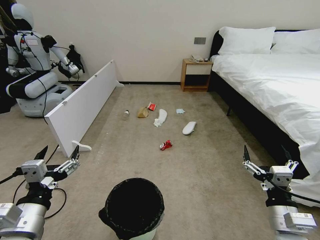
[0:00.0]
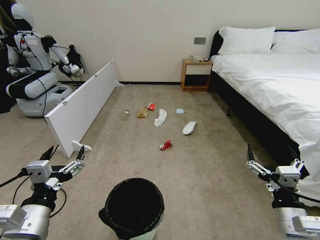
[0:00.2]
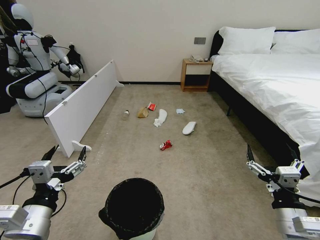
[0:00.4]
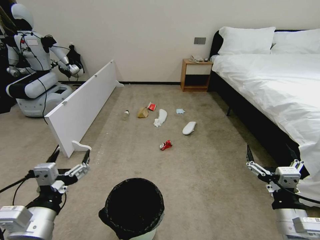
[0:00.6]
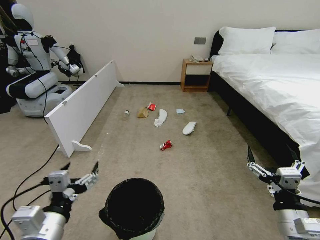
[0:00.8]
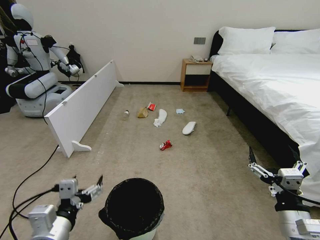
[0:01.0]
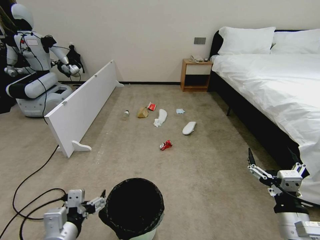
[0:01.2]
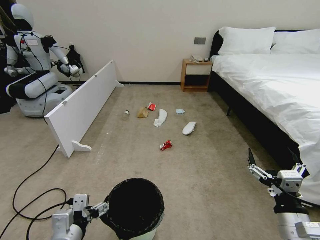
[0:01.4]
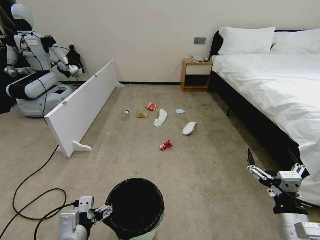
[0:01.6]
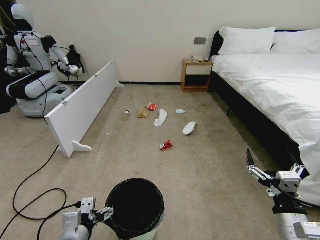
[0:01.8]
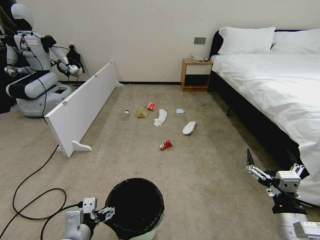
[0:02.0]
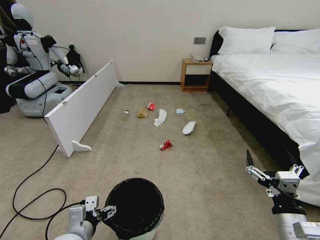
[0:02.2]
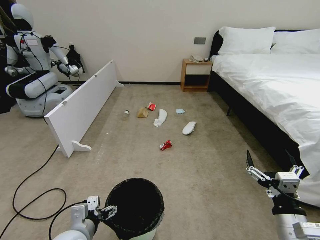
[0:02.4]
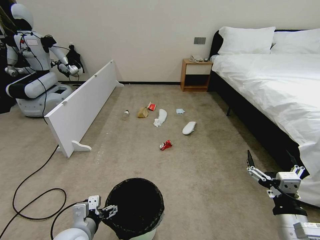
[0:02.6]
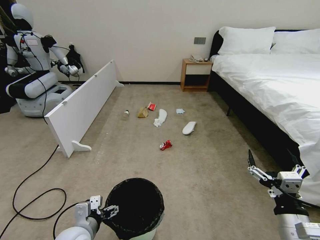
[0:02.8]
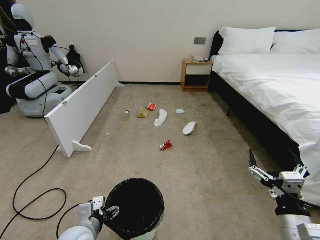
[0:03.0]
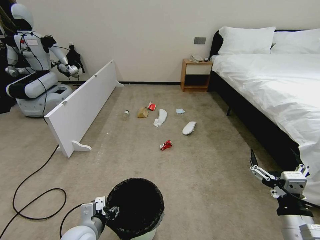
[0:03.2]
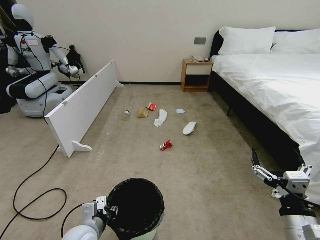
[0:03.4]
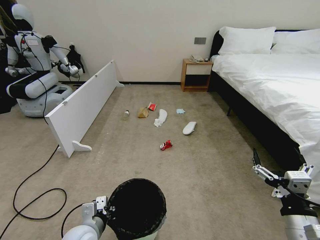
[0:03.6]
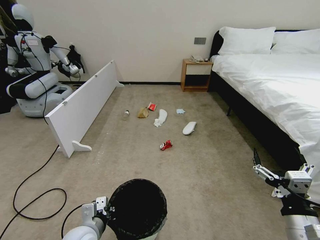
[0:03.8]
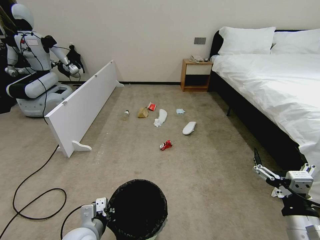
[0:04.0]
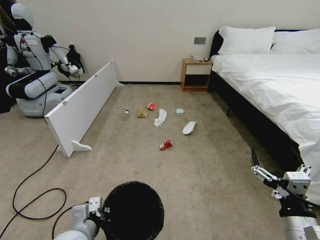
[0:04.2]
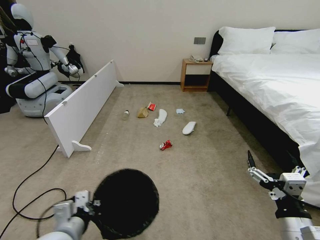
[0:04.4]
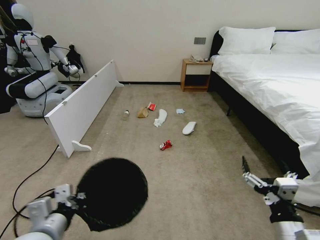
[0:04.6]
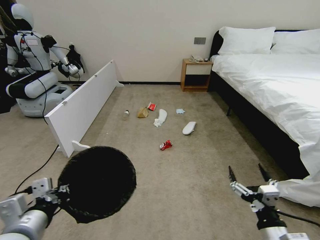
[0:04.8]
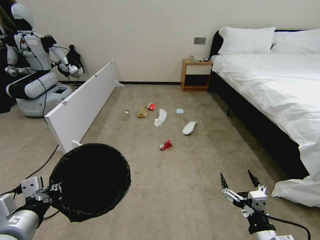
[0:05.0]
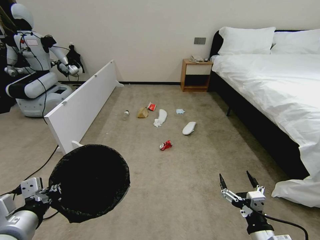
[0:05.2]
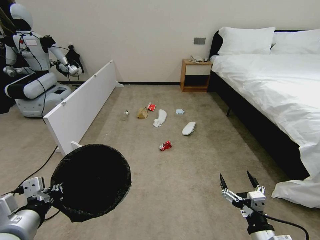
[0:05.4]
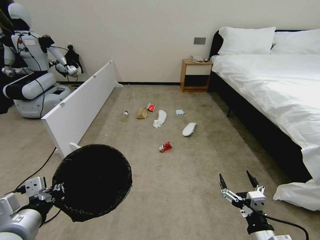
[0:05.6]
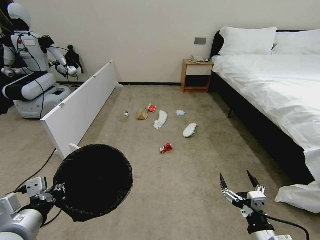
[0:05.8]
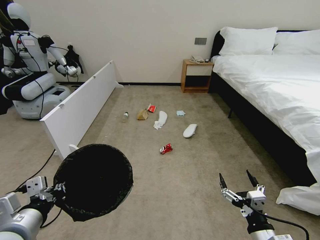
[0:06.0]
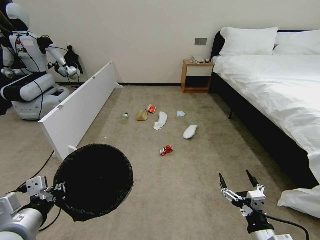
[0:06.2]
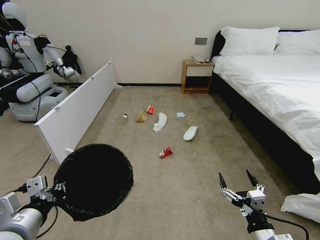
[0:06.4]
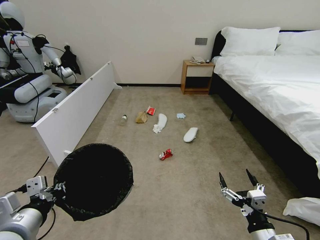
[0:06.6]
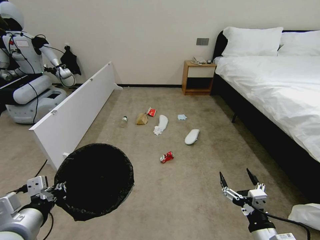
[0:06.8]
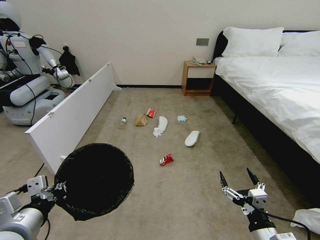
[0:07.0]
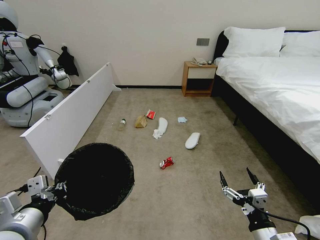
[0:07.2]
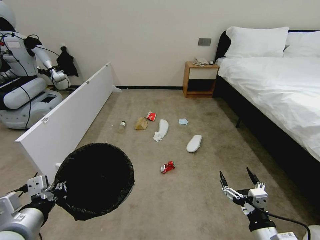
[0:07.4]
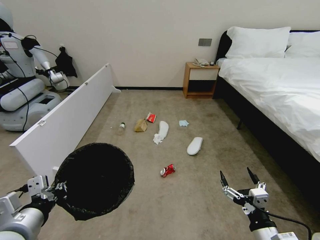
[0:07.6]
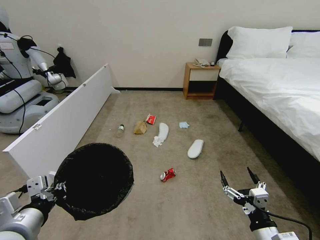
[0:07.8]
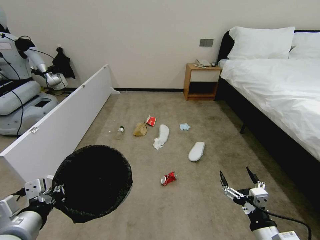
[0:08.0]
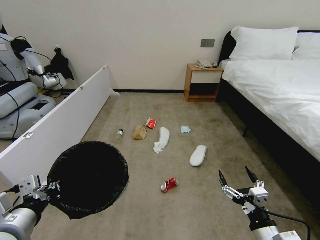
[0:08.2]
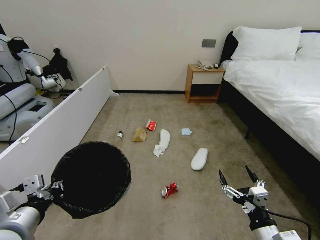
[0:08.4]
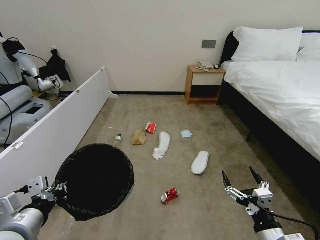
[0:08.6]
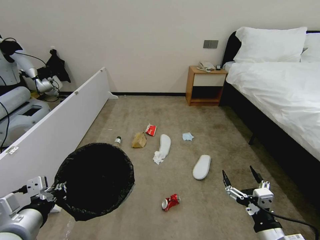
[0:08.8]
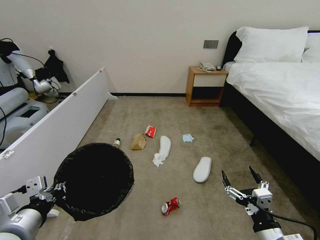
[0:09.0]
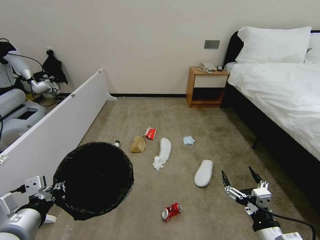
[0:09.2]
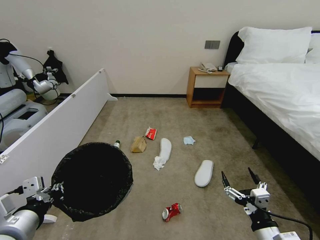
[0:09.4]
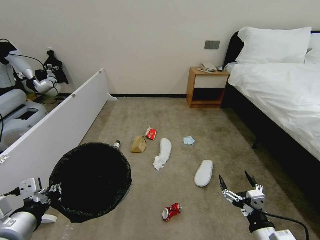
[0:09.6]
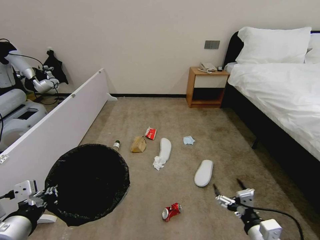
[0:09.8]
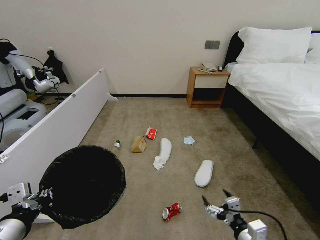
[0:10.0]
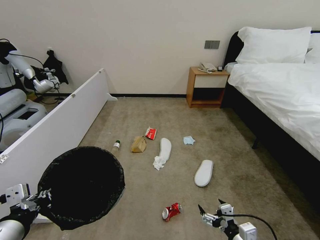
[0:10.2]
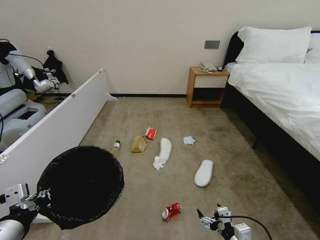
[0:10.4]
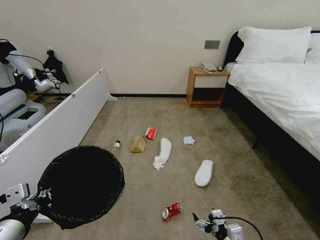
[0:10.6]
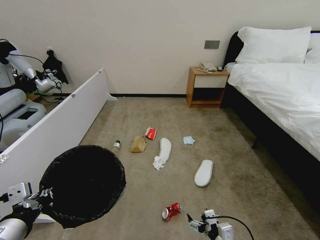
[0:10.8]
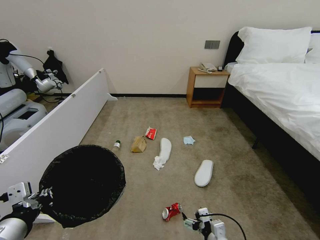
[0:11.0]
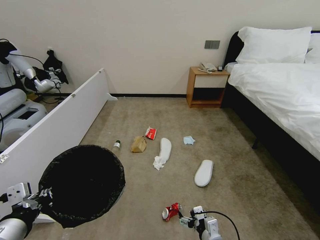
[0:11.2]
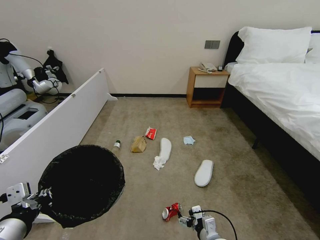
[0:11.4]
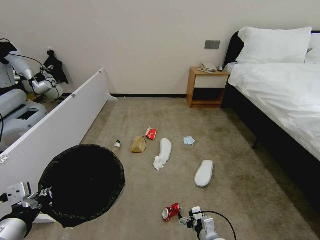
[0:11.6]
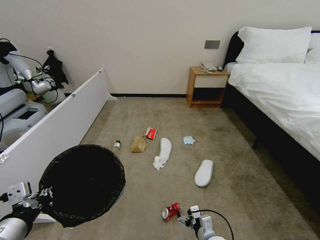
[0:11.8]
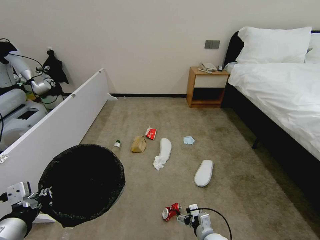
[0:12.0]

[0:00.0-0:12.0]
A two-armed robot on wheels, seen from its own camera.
Task of the whole recording: Pick up the trash bin, then pick up the garbage from the floor and place it into the trash bin.
0:01.6 to 0:03.0: The left gripper is displaced downward and forward by approximately 10 cm.
0:03.0 to 0:04.4: The left gripper heads upward, covering approximately 5 cm, and closes its fingers.
0:04.4 to 0:06.0: The right gripper goes roughly 10 cm downward; the left gripper travels upward and to the left by approximately 10 cm.
0:09.0 to 0:10.4: The right gripper moves downward, approximately 5 cm.
0:10.4 to 0:12.0: The right gripper goes some 15 cm downward, forward and to the left.

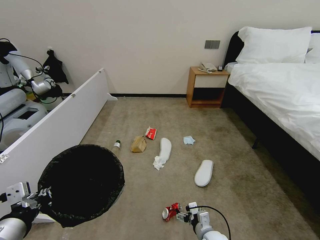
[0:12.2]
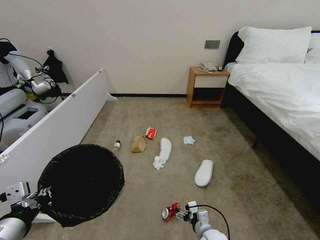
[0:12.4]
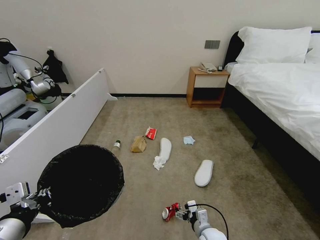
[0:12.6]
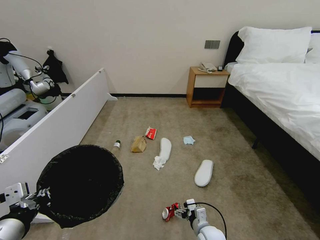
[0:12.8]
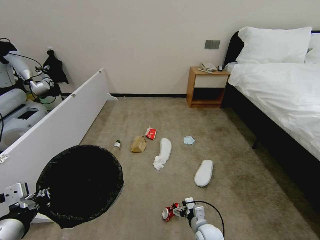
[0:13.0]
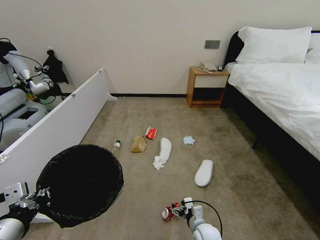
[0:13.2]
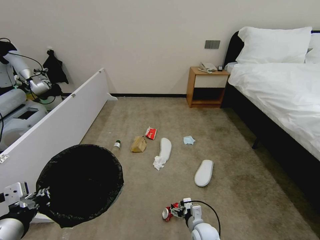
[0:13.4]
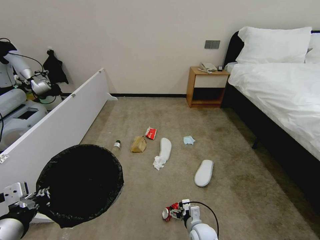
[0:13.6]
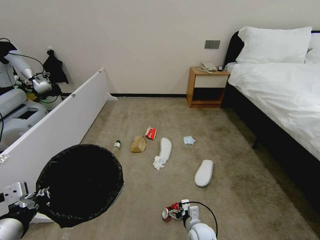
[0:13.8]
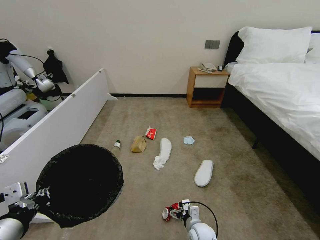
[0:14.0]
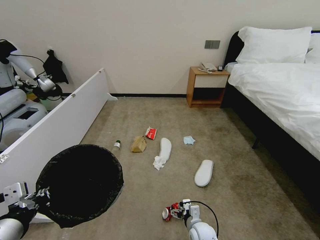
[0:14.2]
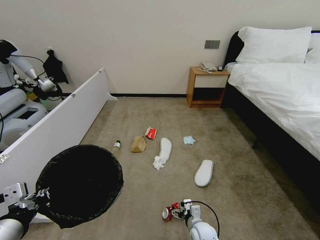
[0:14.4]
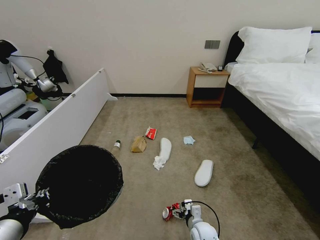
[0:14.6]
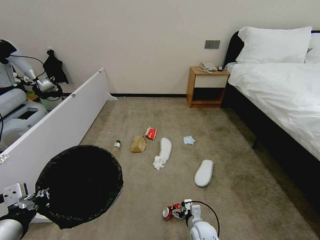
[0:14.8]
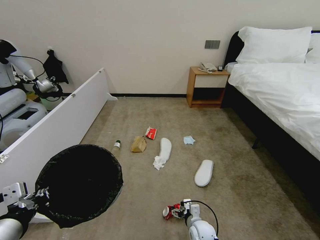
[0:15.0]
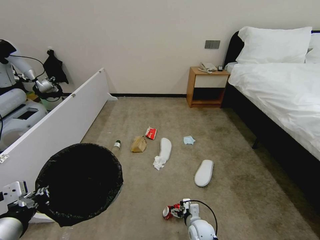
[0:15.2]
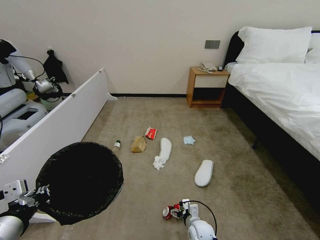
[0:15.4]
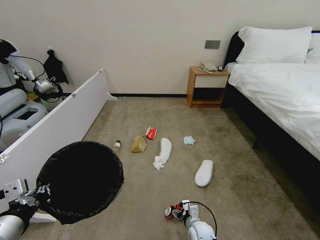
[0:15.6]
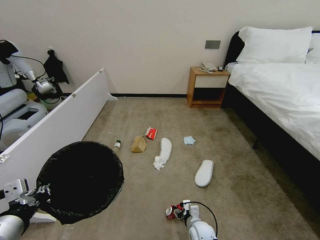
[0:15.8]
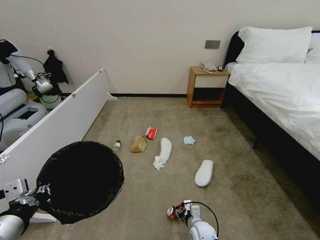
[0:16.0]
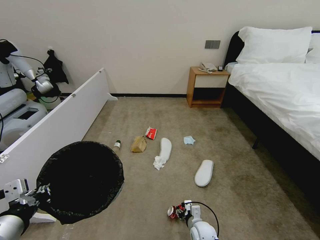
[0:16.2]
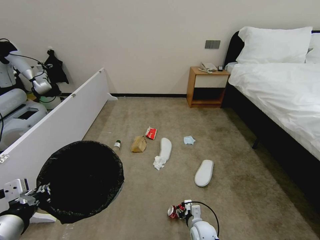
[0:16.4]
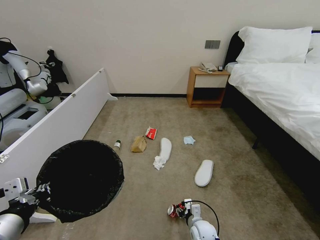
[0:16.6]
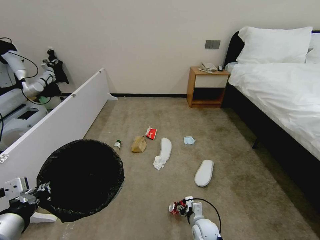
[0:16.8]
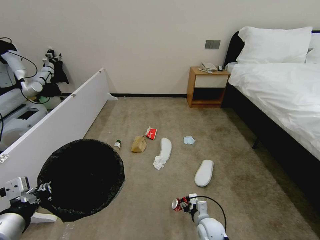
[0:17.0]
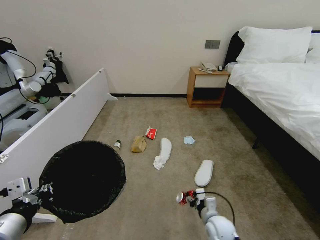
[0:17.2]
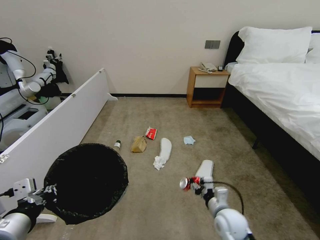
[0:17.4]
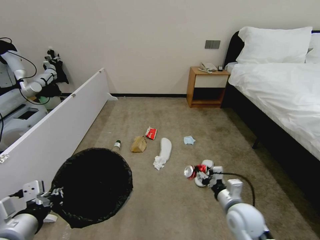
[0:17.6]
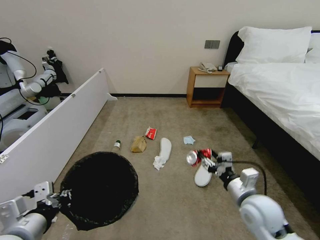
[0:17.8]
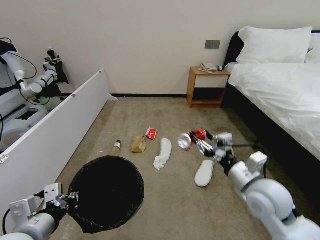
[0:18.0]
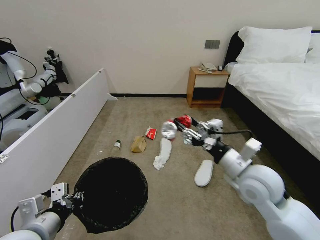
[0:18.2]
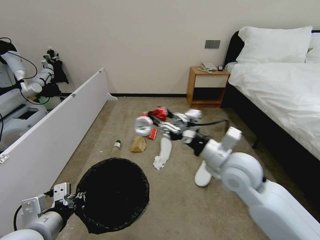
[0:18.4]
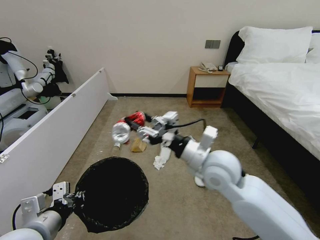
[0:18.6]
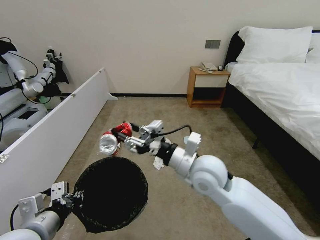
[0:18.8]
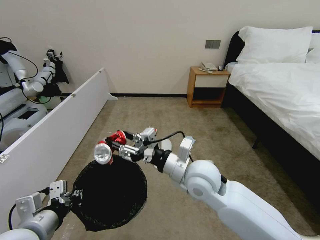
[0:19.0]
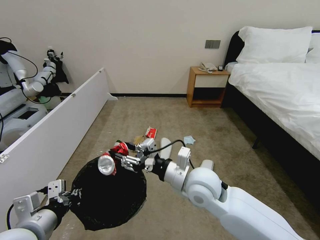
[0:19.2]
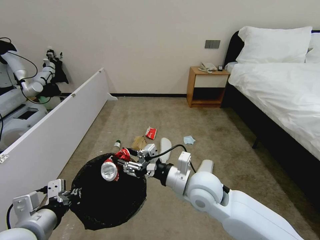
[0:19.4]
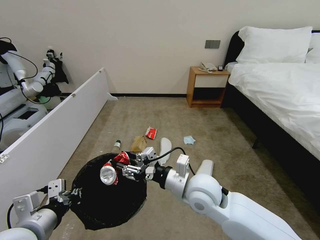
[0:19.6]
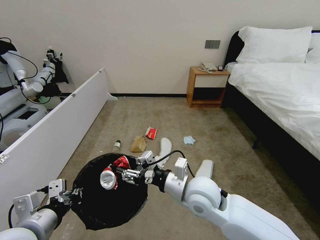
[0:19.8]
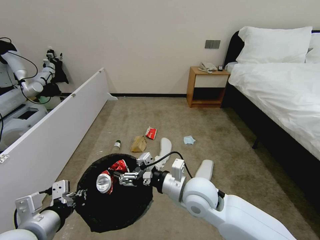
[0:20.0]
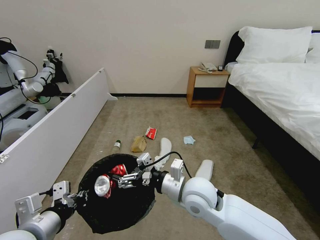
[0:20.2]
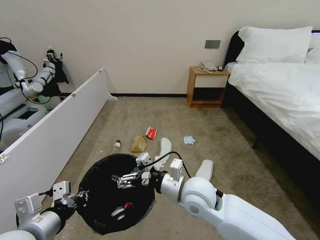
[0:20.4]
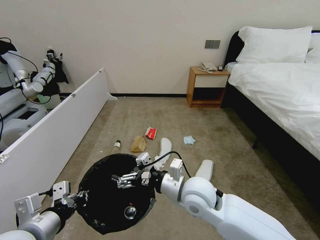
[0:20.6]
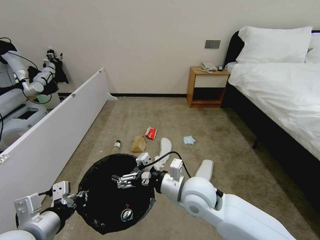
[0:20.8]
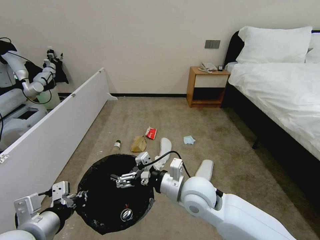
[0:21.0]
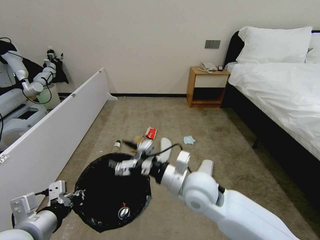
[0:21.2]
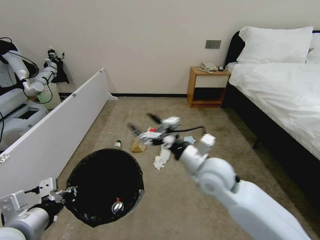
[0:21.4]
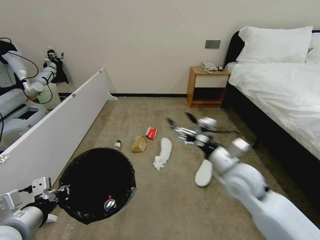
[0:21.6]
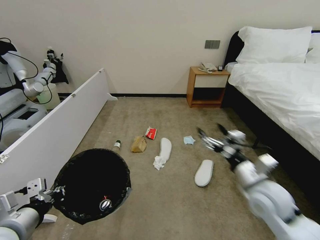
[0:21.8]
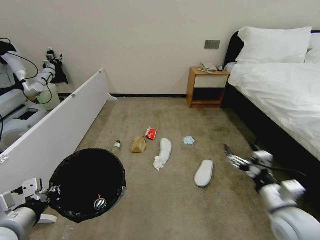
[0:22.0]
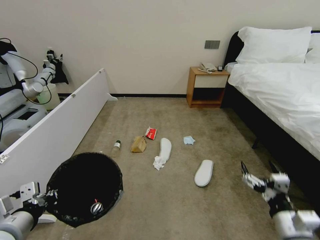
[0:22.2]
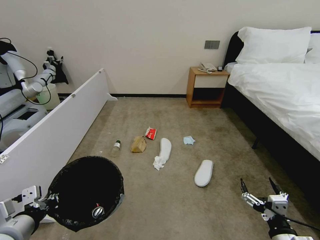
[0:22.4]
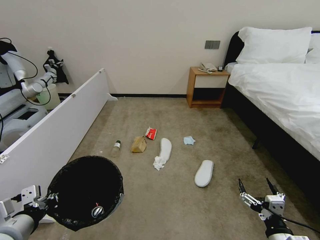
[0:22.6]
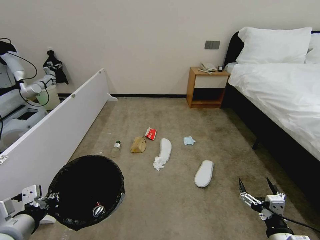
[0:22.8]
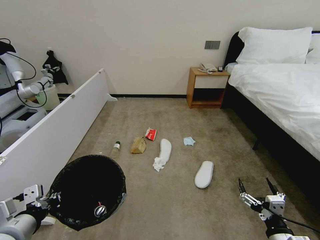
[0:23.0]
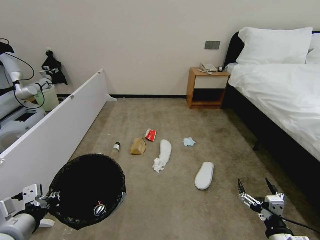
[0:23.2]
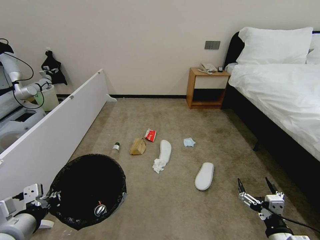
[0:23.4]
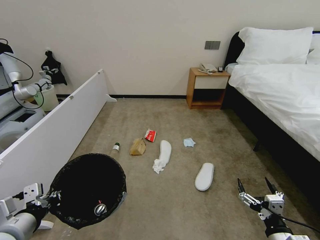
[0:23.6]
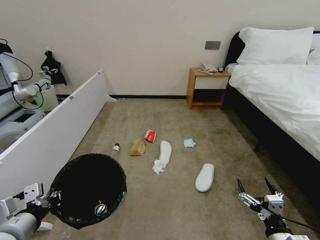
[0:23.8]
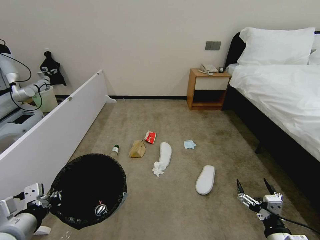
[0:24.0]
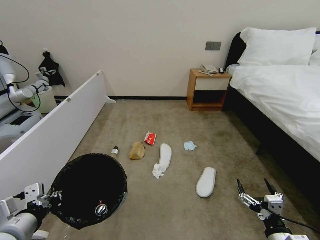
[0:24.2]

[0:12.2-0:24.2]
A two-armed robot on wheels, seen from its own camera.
Task of the whole recording: Pick up the trash bin, then pick up the garbage from the floor and place it into the trash bin.
0:12.2 to 0:13.8: The right gripper shifts by about 5 cm.
0:13.8 to 0:15.2: The grippers stay close to where they were, moving slightly.
0:15.2 to 0:16.6: The right gripper closes.
0:16.6 to 0:18.2: The left gripper changes place by about 5 cm. Meanwhile the right gripper heads upward, covering roughly 35 cm.
0:18.2 to 0:19.8: The right gripper travels to the left by about 15 cm.
0:19.8 to 0:21.2: The right gripper opens up.
0:21.2 to 0:22.6: The left gripper moves to the left, about 5 cm. Meanwhile the right gripper shifts roughly 35 cm to the right, backward and downward.
0:22.6 to 0:24.2: Both grippers stay put.
